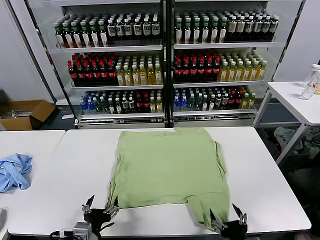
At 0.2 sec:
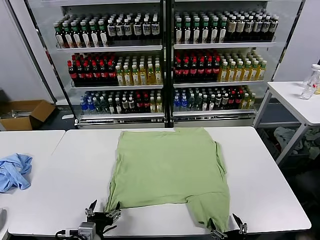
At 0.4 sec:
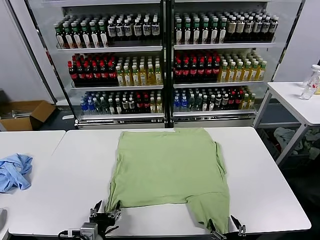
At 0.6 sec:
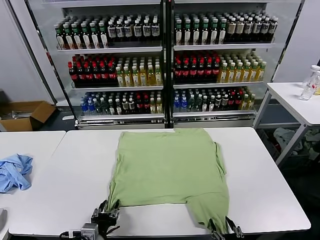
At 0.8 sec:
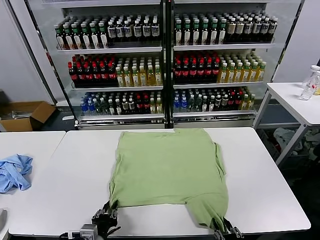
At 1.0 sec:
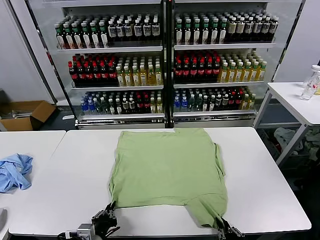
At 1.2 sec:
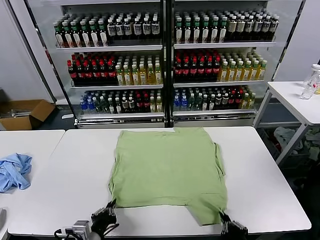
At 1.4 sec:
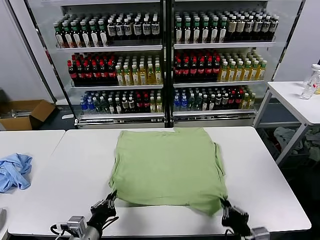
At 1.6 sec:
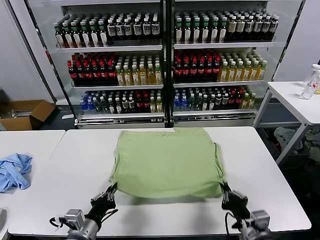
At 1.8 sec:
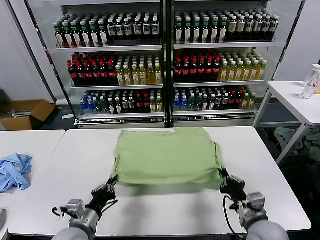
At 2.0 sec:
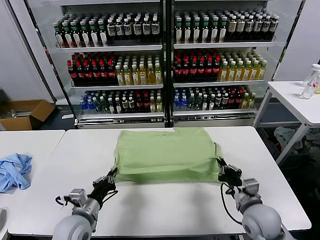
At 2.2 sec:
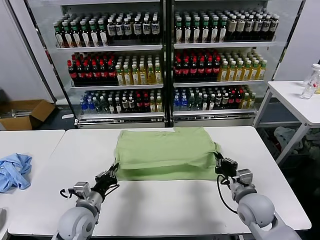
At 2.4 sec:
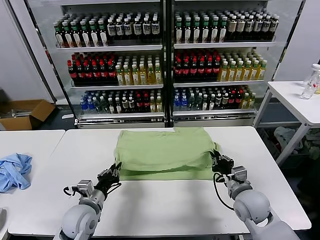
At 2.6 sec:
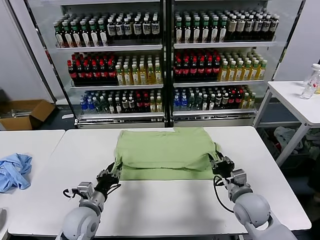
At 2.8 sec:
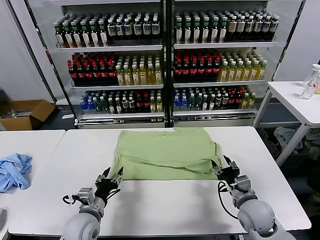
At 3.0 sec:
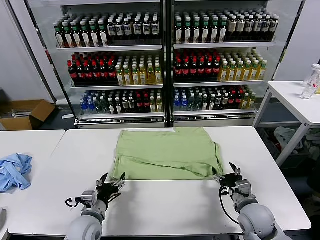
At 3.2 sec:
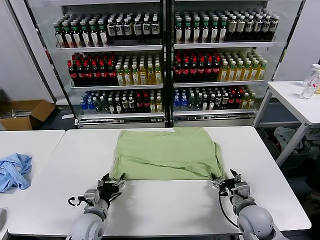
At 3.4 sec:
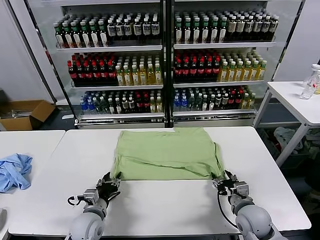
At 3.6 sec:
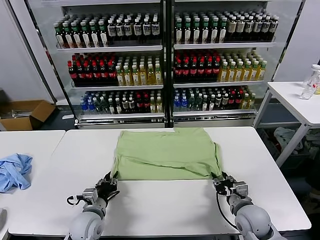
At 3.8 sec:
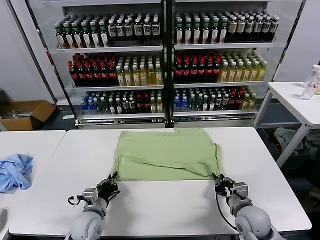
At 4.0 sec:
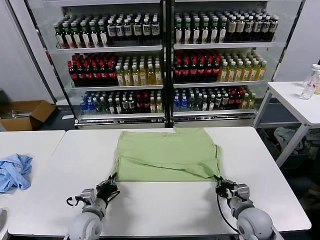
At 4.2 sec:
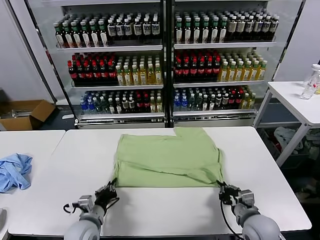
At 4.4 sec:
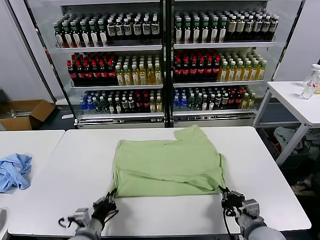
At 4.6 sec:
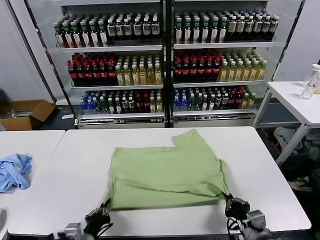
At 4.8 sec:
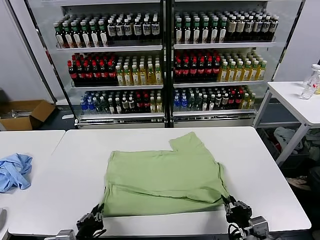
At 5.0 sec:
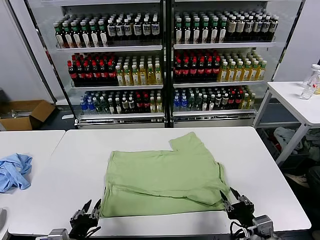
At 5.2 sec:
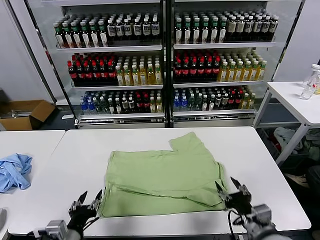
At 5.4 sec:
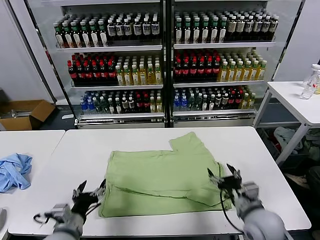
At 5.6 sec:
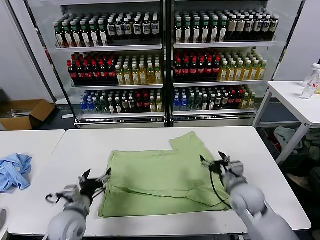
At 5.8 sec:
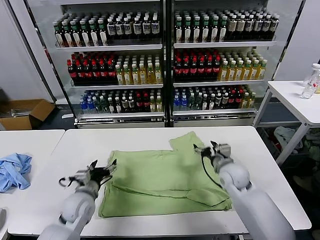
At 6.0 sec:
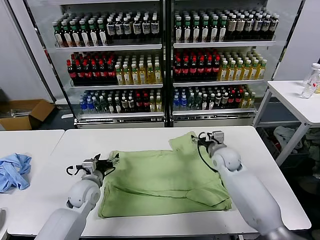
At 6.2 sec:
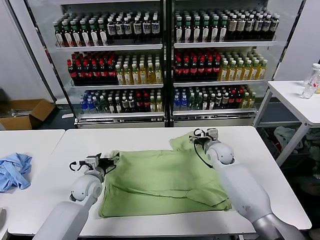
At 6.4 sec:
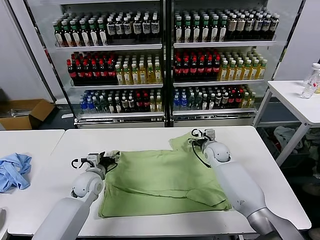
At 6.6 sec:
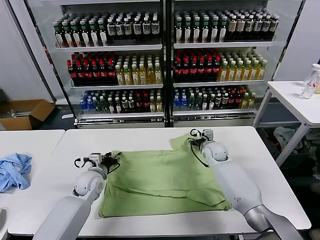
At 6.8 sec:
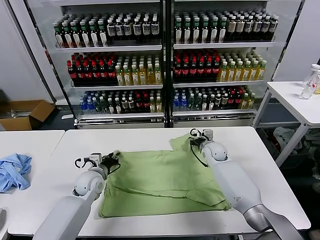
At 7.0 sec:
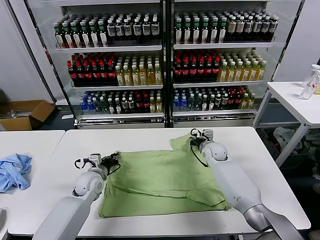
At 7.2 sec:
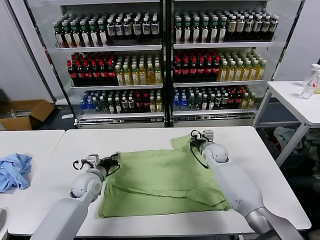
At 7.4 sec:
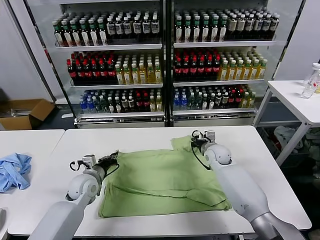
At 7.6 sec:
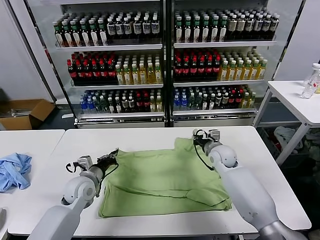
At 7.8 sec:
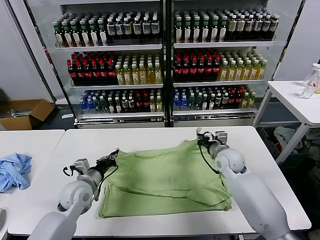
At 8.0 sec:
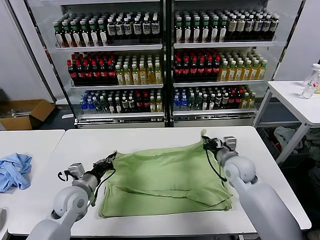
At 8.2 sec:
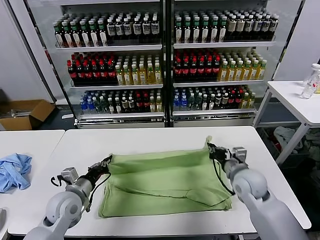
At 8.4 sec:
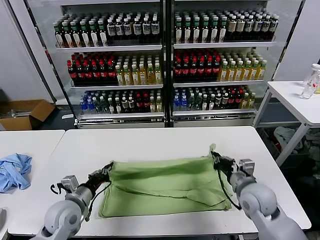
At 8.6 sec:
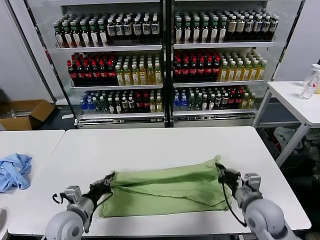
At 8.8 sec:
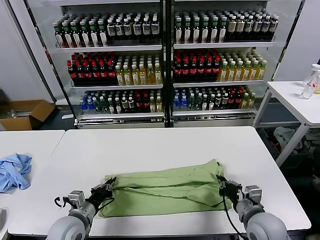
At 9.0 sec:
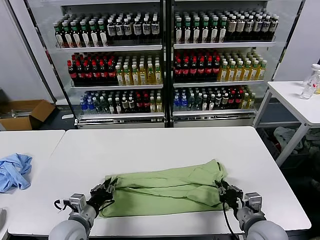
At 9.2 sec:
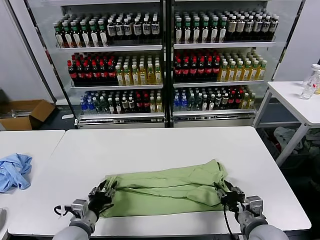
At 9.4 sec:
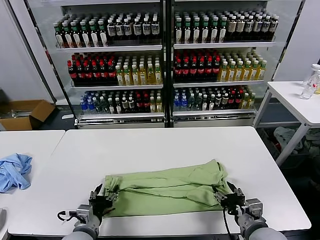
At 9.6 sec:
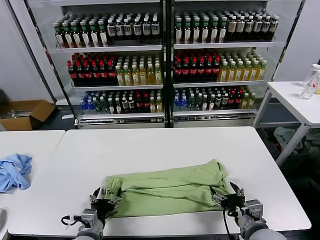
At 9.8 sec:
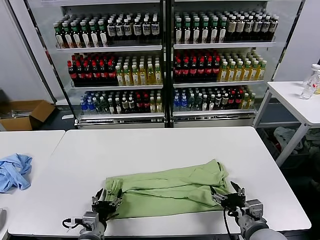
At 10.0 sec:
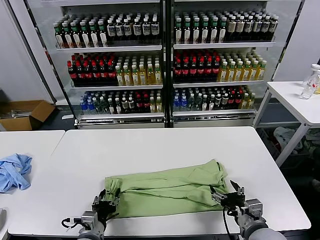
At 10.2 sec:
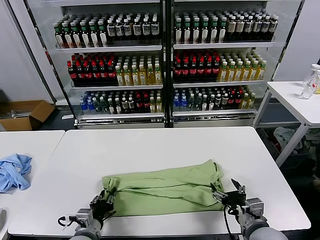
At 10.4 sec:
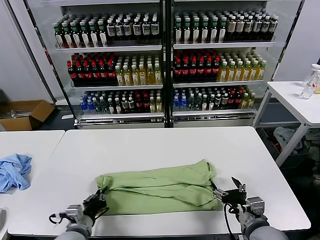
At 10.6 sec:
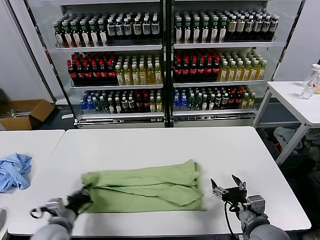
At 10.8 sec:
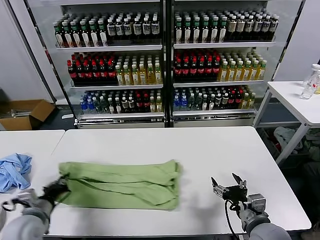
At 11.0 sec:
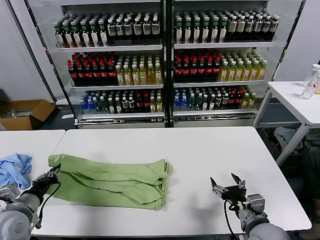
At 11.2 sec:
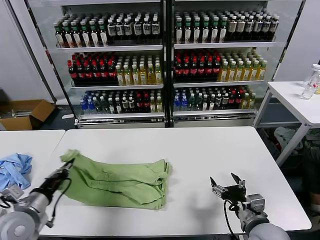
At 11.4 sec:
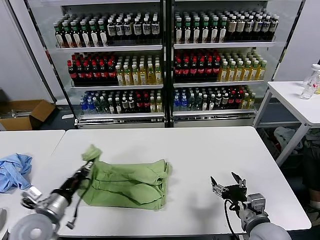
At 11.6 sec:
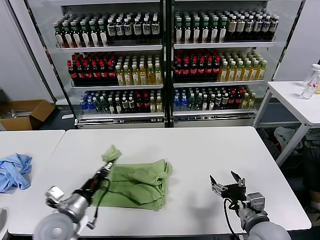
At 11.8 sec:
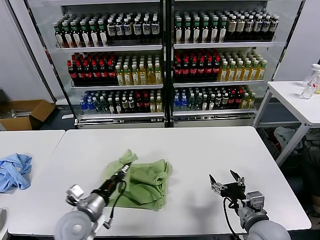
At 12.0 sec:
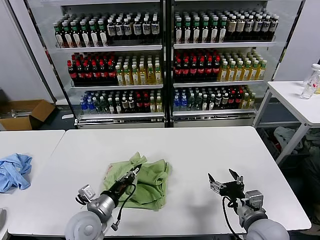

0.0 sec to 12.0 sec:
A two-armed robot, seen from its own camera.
Task of the whole recording: fold and organize the clothes.
Step, 0.0 sec to 1.0 sec: use both grippers simultaneously to clamp the lower edge of the clothing fabric.
Step, 1.2 sec to 2.8 sec: use both grippers to drag the lower edge of the fabric forward and fold it over the upper edge.
Step, 3.0 sec to 5.0 sec: Drag the clothes downward with both gripper.
Step, 5.2 sec to 7.0 sec: use both grippers simultaneously to clamp the upper edge of the clothing fabric.
Step, 7.2 sec to 9.2 sec: use both grippers to drag the upper edge of the fabric backward and fold it over the lower edge.
Step, 9.4 sec to 10.2 sec: use the left gripper to clamp the left edge of the fabric.
1.6 sec to 3.0 sec: The grippers both shift forward and downward by about 10 cm. The left gripper opens up. The right gripper opens up.
3.0 sec to 4.4 sec: Both grippers travel together backward, about 10 cm. The right gripper closes its fingers. Meanwhile the left gripper closes.
4.4 sec to 6.0 sec: The right gripper moves forward, about 30 cm, and opens, while the left gripper is displaced forward by approximately 20 cm, and opens up.
6.0 sec to 7.6 sec: The right gripper closes, while the left gripper closes up.
7.6 sec to 9.0 sec: The right gripper goes about 25 cm backward. Meanwhile the left gripper shifts approximately 15 cm backward.
9.0 sec to 10.4 sec: The right gripper opens up. Meanwhile the left gripper opens and closes again.
10.4 sec to 12.0 sec: The left gripper moves upward, some 5 cm, and goes to the left and returns, some 15 cm each way.

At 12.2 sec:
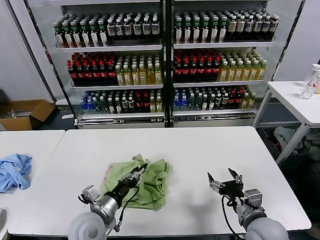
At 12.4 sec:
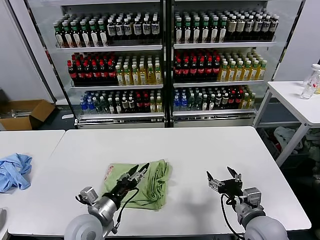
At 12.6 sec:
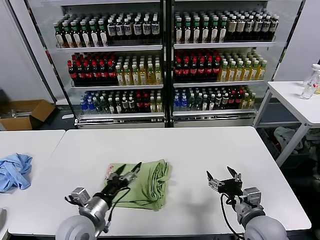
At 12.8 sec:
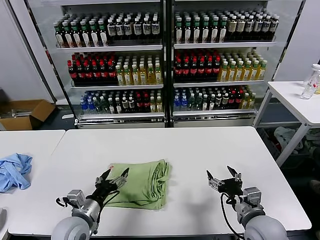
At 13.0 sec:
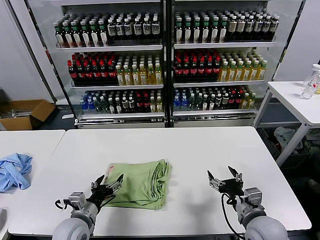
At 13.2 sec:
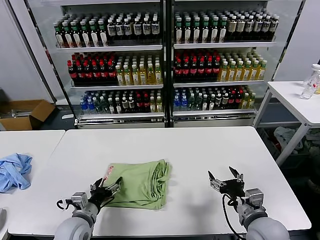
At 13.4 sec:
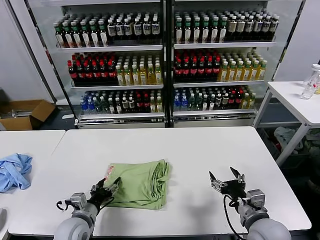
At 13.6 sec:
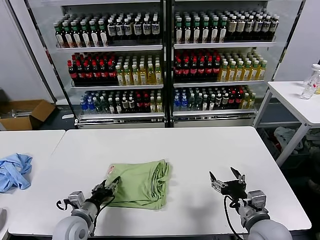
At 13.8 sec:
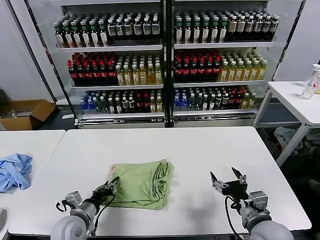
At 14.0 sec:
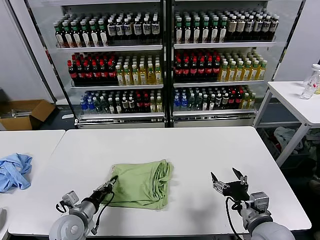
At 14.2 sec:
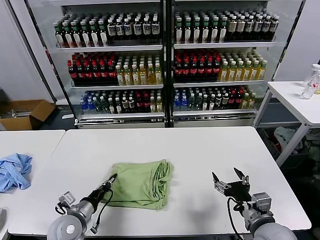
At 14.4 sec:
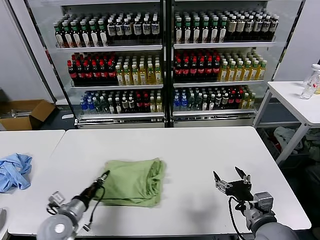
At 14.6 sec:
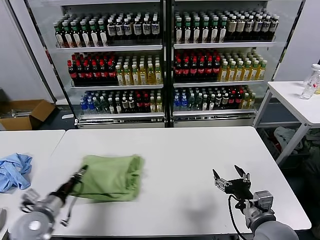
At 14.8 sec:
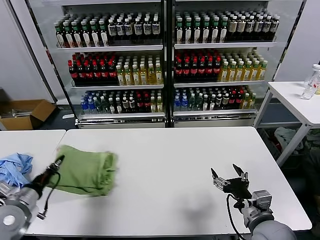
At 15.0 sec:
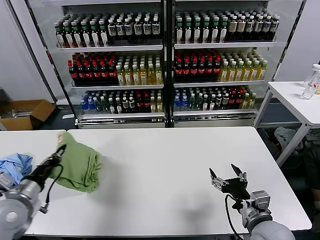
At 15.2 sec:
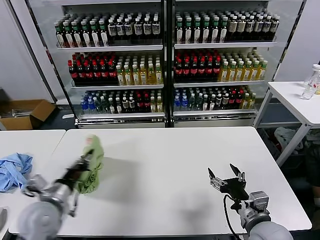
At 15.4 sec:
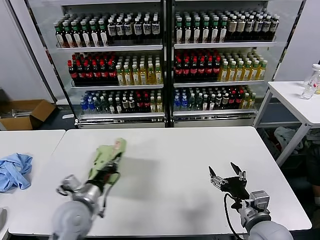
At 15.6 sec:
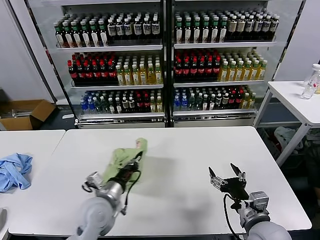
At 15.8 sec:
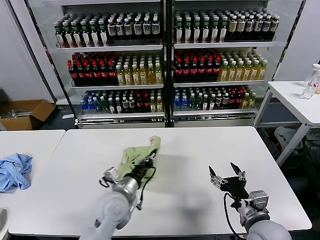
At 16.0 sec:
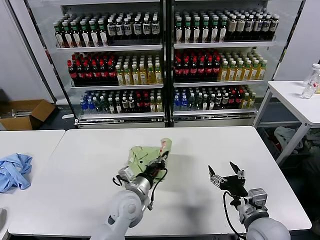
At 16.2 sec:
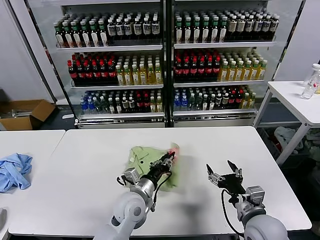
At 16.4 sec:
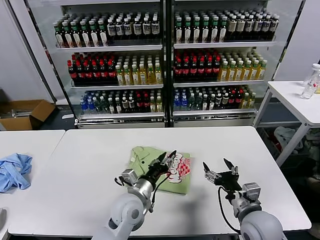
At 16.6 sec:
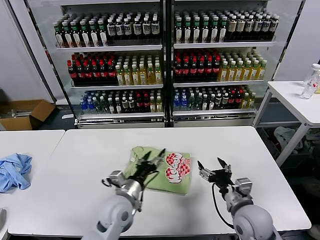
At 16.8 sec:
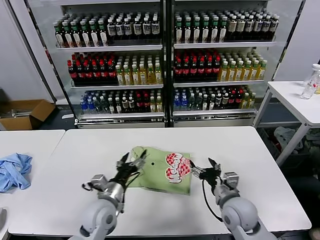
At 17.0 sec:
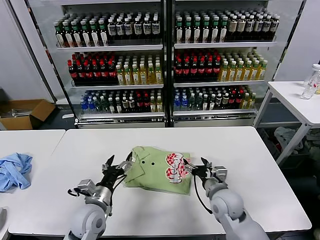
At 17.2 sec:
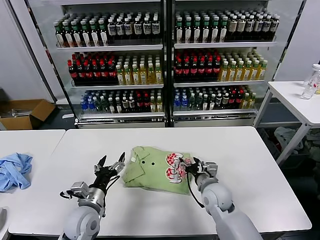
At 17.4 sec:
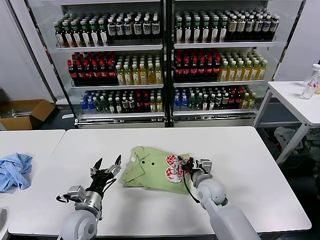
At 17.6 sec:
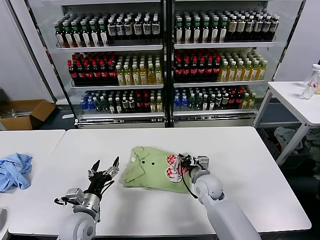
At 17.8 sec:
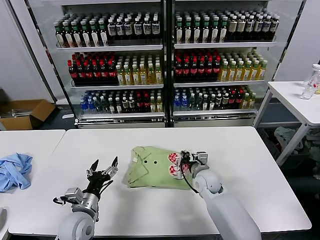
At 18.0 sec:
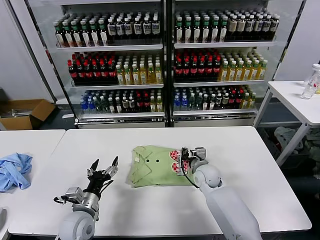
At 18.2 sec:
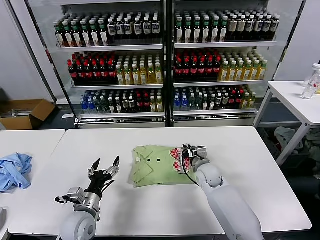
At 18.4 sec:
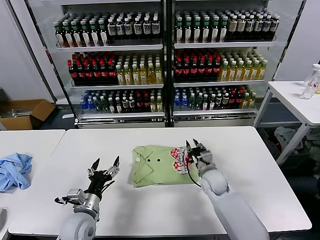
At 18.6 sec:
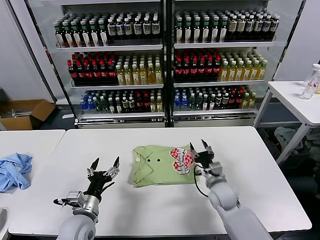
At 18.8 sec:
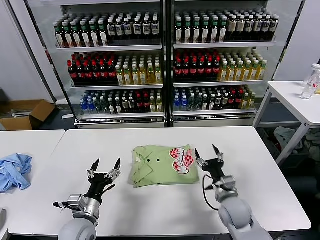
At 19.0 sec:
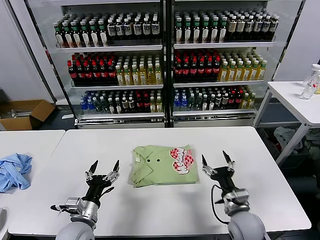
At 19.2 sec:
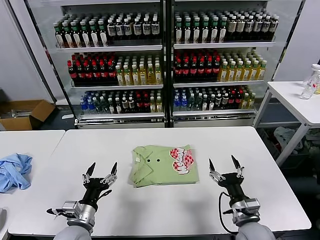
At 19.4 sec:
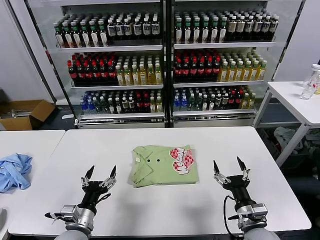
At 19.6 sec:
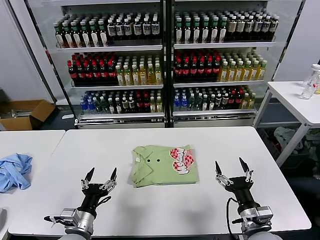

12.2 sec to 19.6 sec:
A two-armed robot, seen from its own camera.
Task of the whole recording: fold and organize the clothes.
Step, 12.6 sec to 16.2 sec: Flip the folded clothes over with left gripper.
Step, 16.4 sec to 18.4 sec: Drag the clothes to the center of the table.
12.2 sec to 13.6 sec: The left gripper shifts about 5 cm to the left, and opens, then closes once more.
13.6 sec to 15.2 sec: The left gripper heads upward and to the left, covering approximately 15 cm, and closes its fingers.
15.2 sec to 16.6 sec: The left gripper moves to the right, roughly 20 cm, and opens its fingers, while the right gripper moves approximately 5 cm.
16.6 sec to 18.2 sec: The left gripper shifts approximately 15 cm to the left. Meanwhile the right gripper goes roughly 20 cm forward, and closes up.
18.2 sec to 19.6 sec: The right gripper shifts about 25 cm backward, and opens its fingers. Meanwhile the left gripper shifts approximately 5 cm backward.
